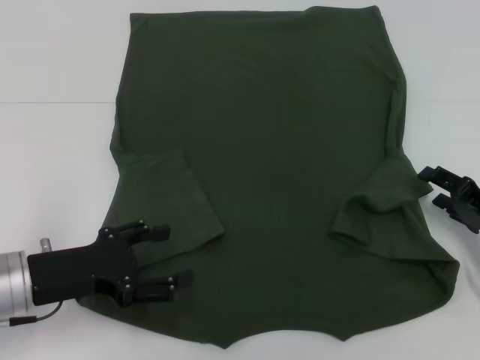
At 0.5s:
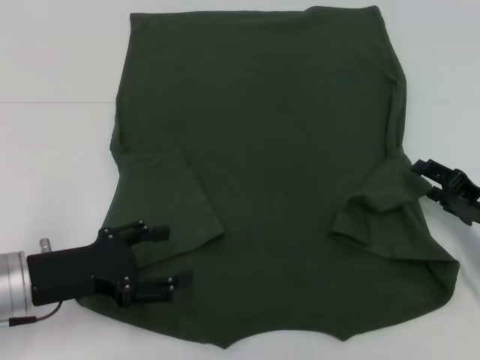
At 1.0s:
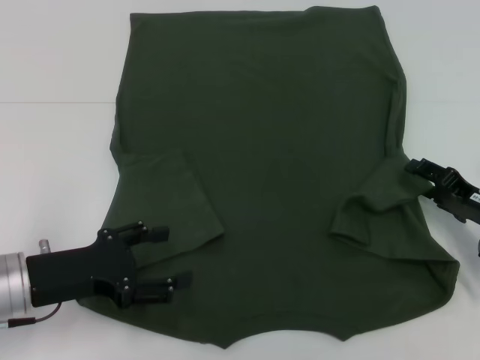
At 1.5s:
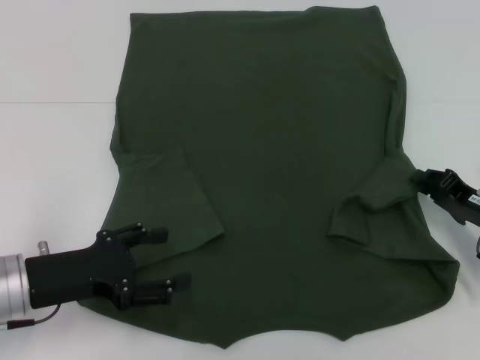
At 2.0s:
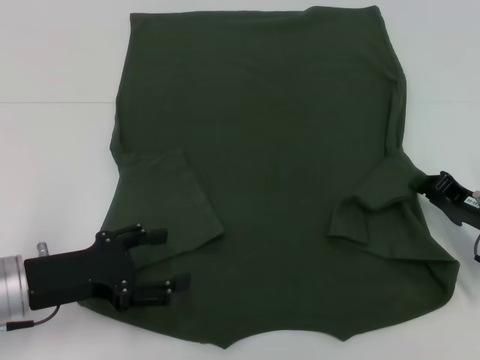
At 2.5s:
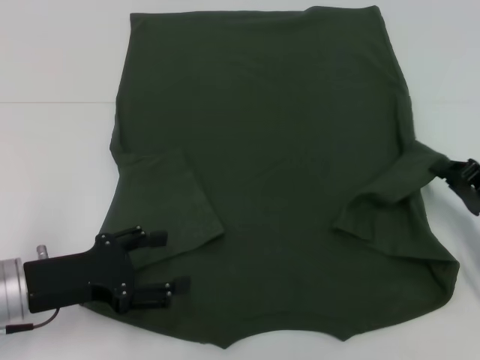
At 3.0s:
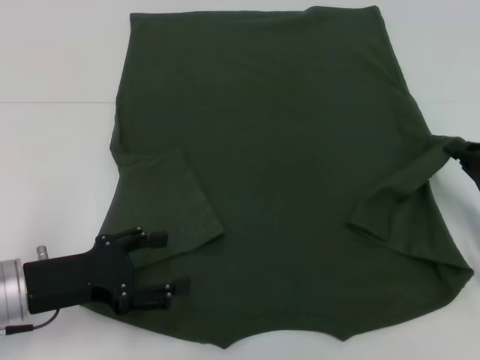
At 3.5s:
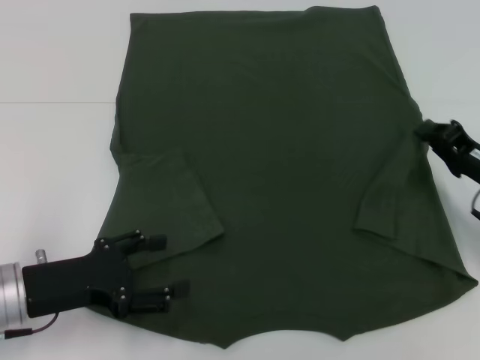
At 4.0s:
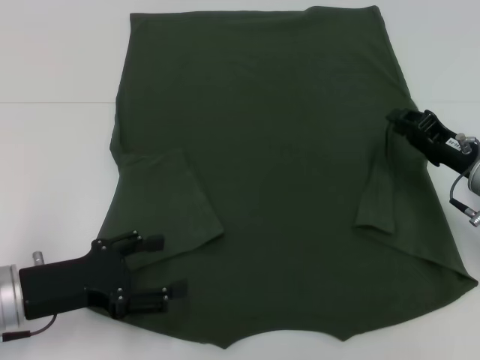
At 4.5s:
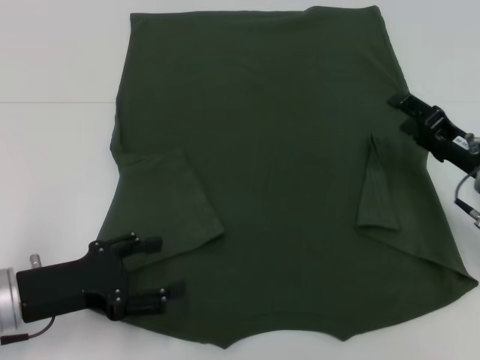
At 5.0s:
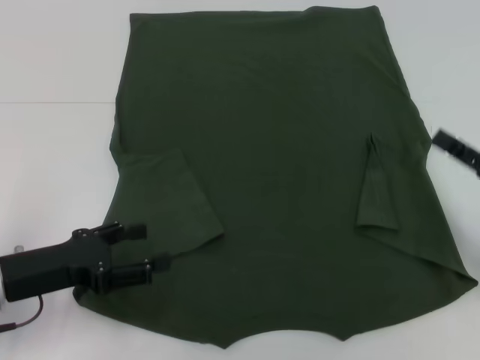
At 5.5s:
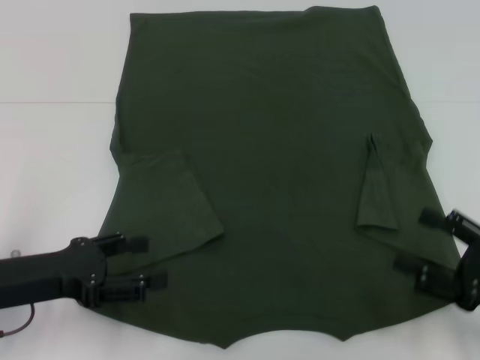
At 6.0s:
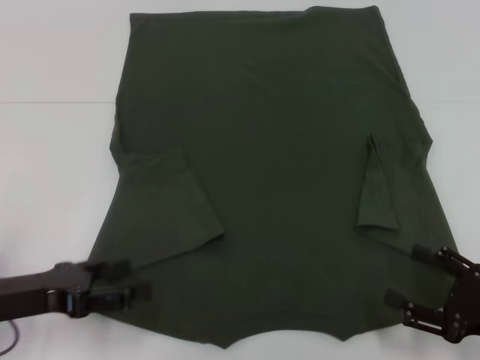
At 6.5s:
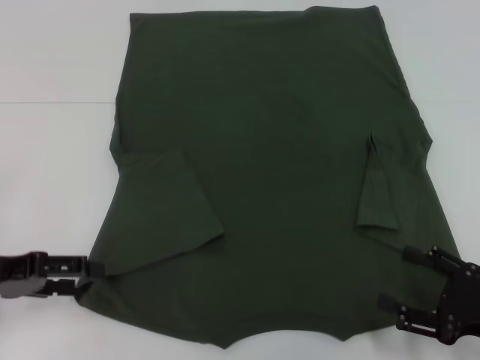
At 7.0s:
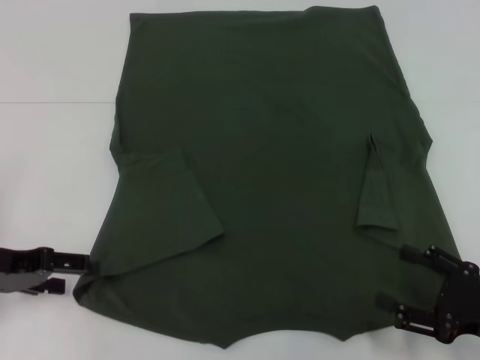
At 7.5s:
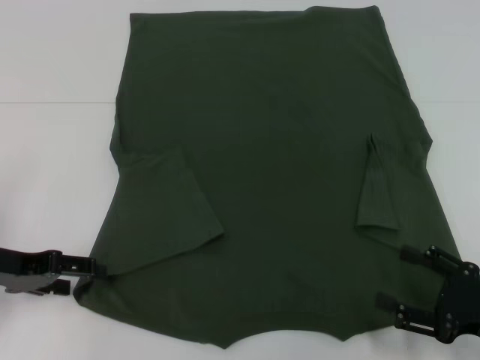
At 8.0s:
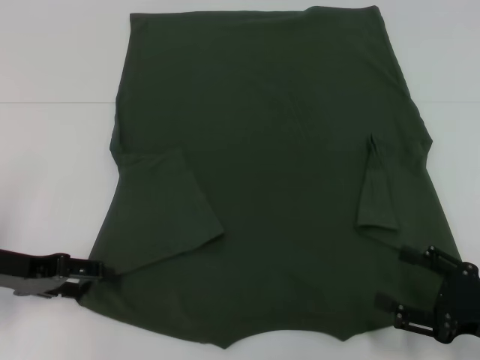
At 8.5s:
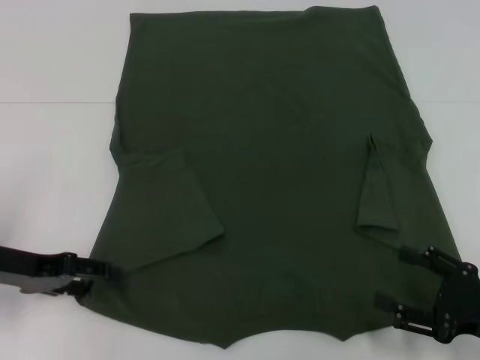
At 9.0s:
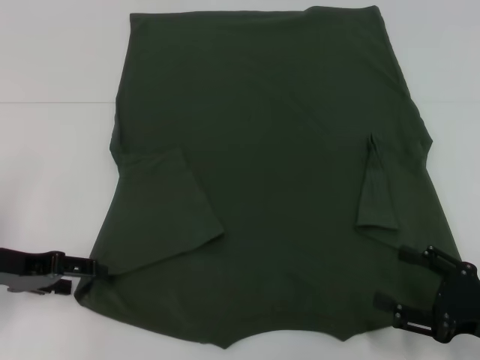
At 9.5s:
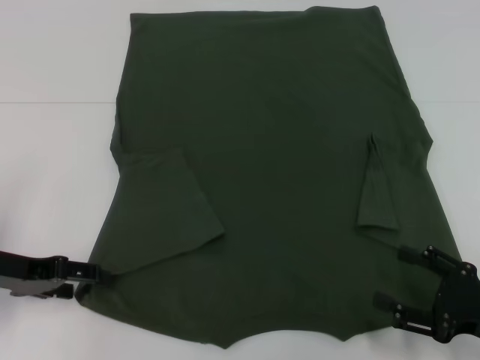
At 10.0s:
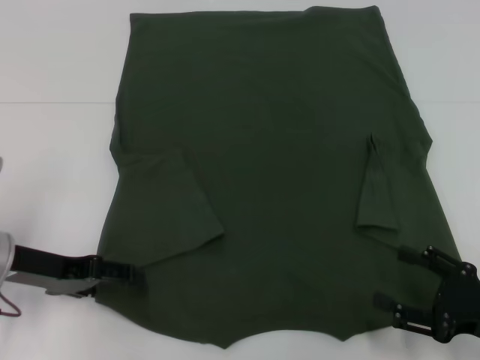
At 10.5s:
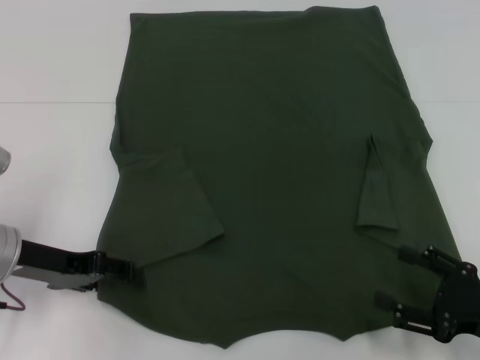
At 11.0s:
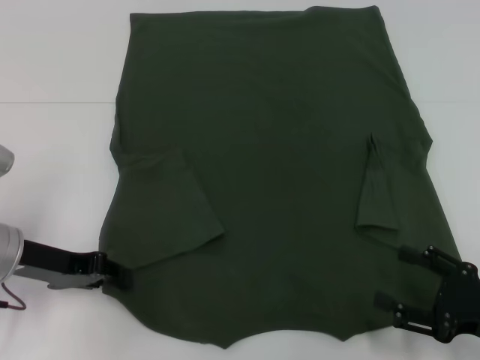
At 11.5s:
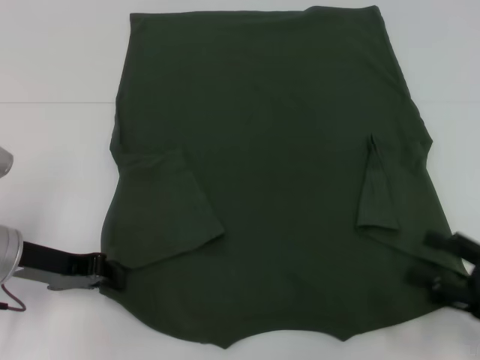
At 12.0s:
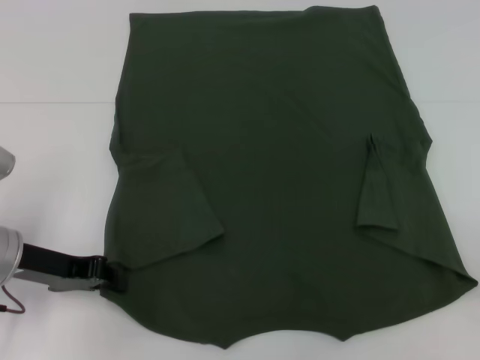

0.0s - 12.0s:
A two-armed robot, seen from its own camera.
Step, 0.0s - 4.0s: Fold the bottom right sleeve with your right hand.
Step, 4.5s - 11.0s: Grab the bottom left corner with your left hand.
0.0s - 2.0s: The right gripper closes.
2.0s - 4.0s: The right gripper changes place by about 5 cm.
4.0s - 6.0s: The right gripper moves backward, roughly 15 cm, and opens up.
6.0s - 8.0s: The left gripper heads forward, covering some 5 cm.
8.0s - 10.0s: The grippers move only a little.
10.0s - 12.0s: The right gripper is displaced to the right and upward by roughly 15 cm; the left gripper closes up.

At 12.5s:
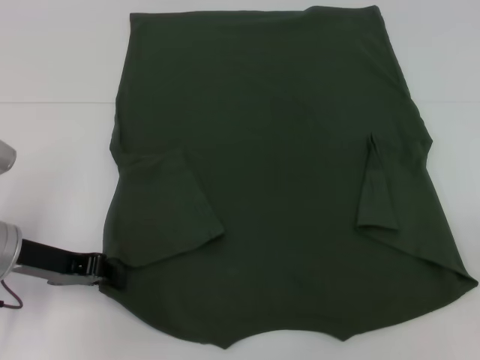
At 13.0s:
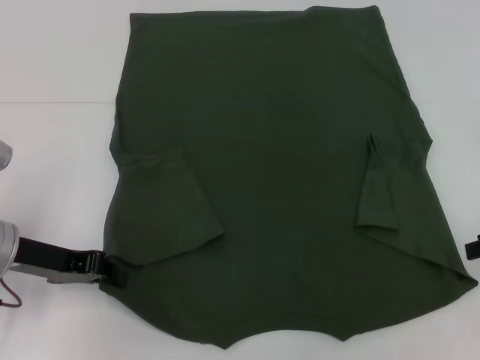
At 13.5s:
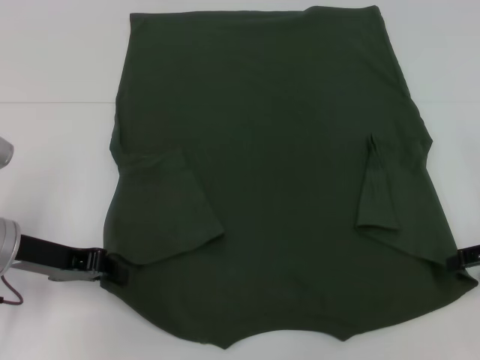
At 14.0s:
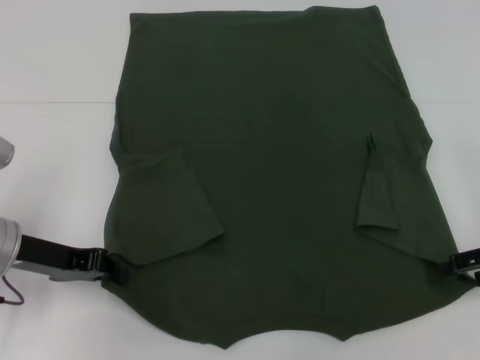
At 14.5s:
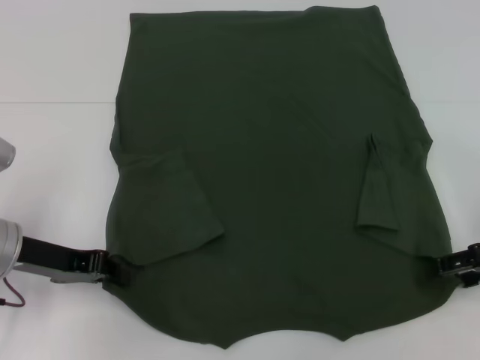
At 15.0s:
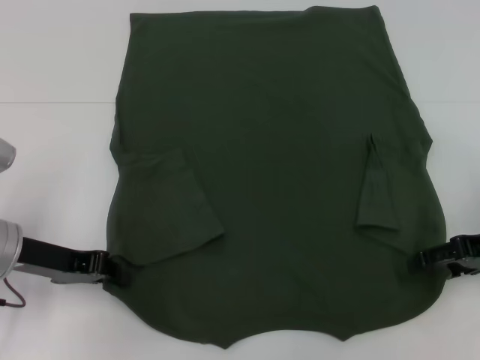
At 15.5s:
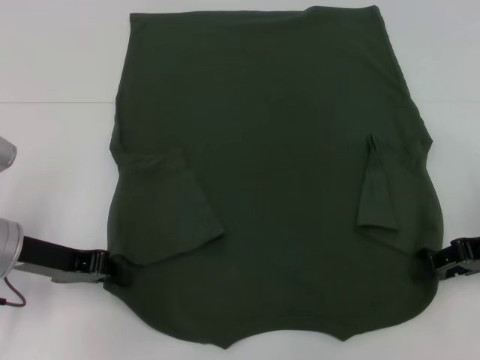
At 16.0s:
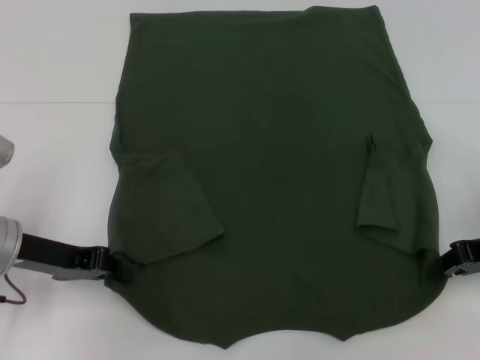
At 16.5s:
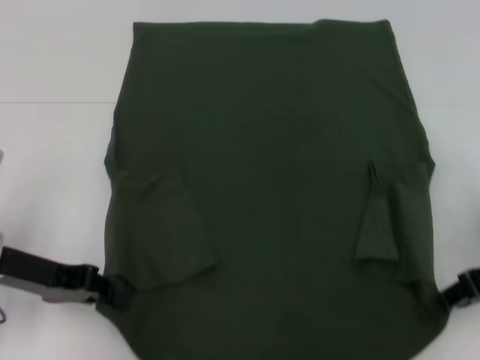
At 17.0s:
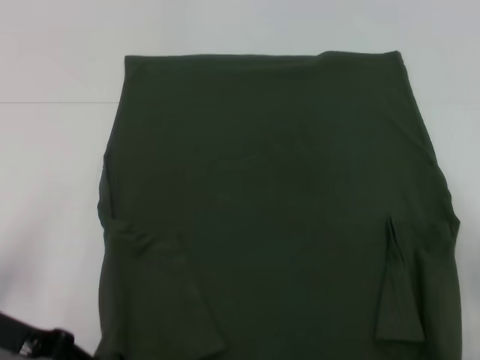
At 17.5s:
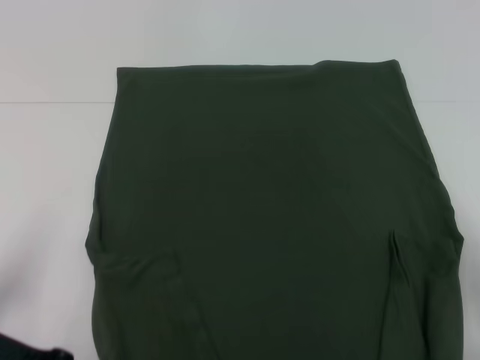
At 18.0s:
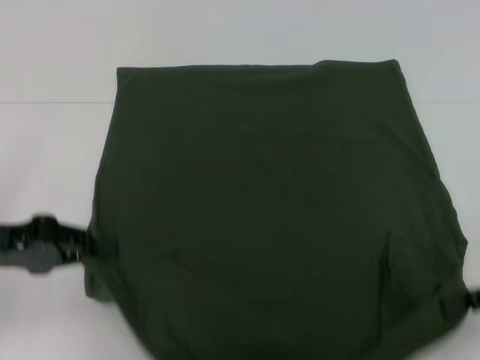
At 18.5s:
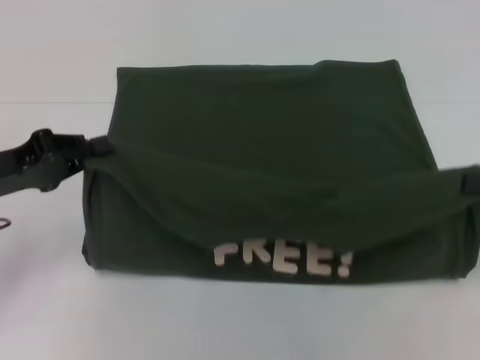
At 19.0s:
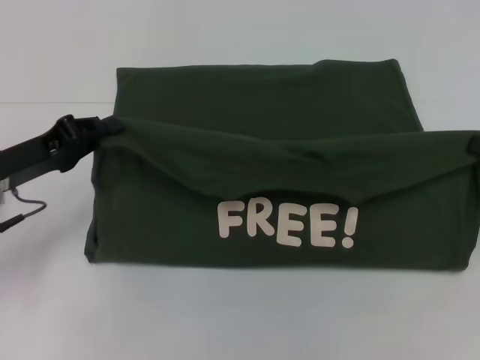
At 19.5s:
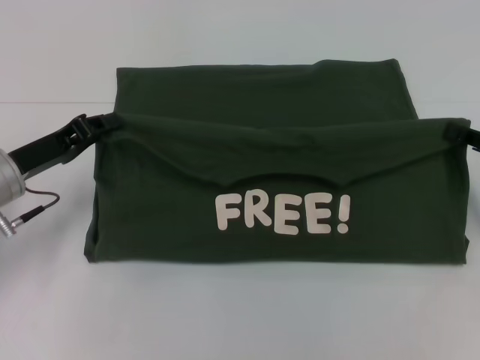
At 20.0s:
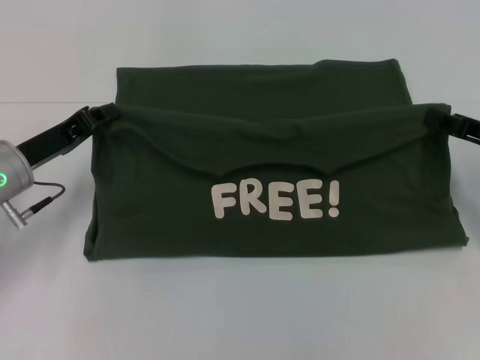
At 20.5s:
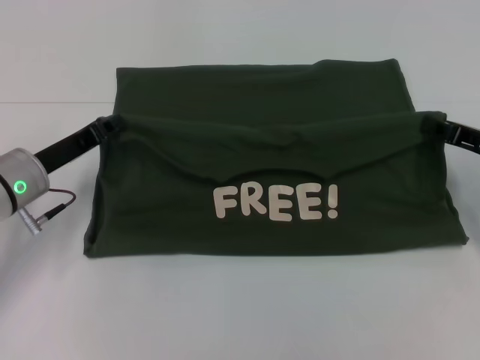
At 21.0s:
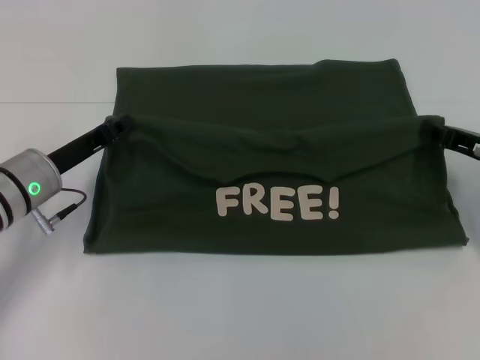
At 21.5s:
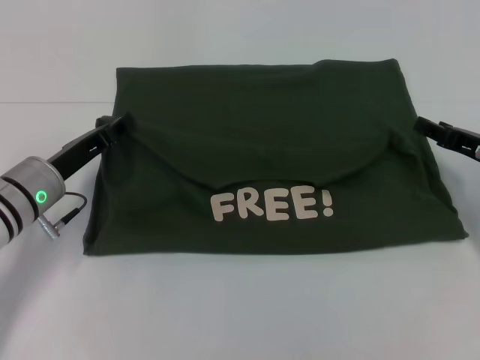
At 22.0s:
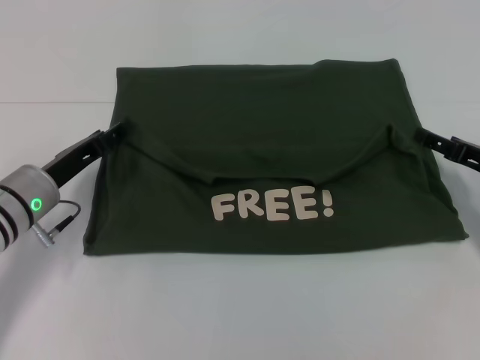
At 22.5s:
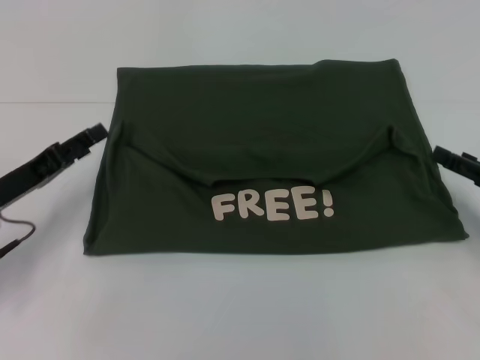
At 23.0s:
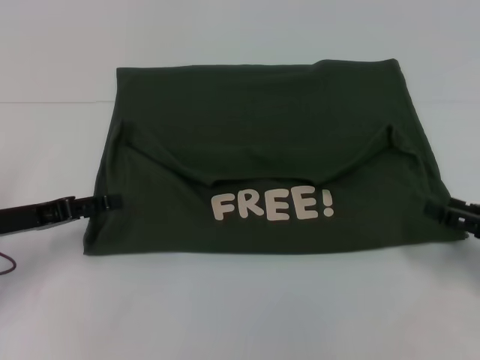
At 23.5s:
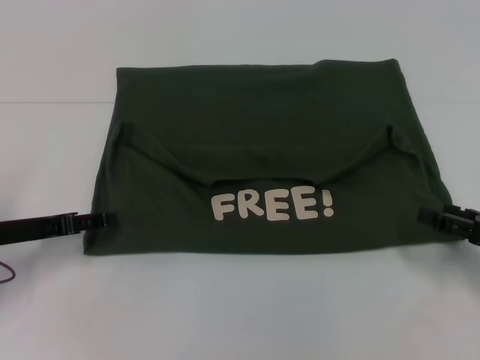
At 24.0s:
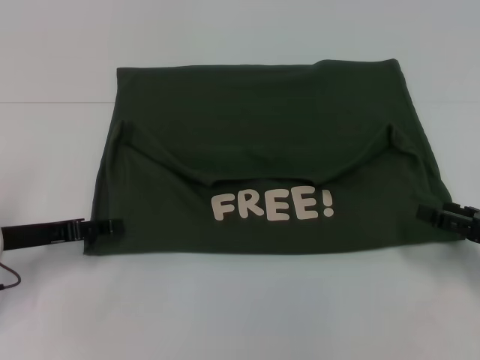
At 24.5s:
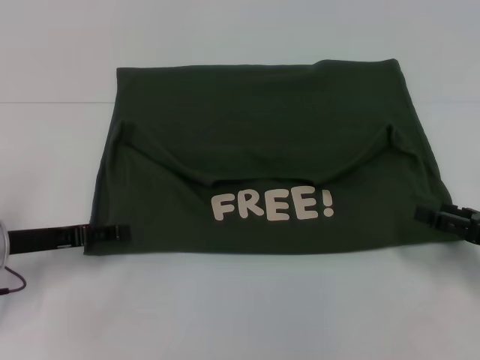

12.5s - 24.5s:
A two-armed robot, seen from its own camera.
Step, 12.5s - 16.0s: Grab the bottom right corner with your right hand.
Step, 16.5s - 21.5s: Fold the clothes with your right hand.
12.5s - 14.5s: The right gripper moves to the left, some 5 cm.
14.5s - 16.5s: The right gripper closes up.
16.5s - 18.5s: The right gripper moves to the right, approximately 5 cm.
18.5s - 20.5s: The left gripper shifts some 10 cm to the right and downward; the right gripper goes some 10 cm forward, to the left and downward.
20.5s - 22.5s: The left gripper ends up approximately 5 cm from where it was, and opens its fingers. Meanwhile the right gripper shifts about 5 cm backward, and opens.

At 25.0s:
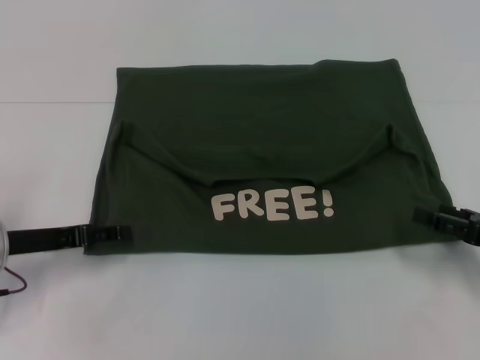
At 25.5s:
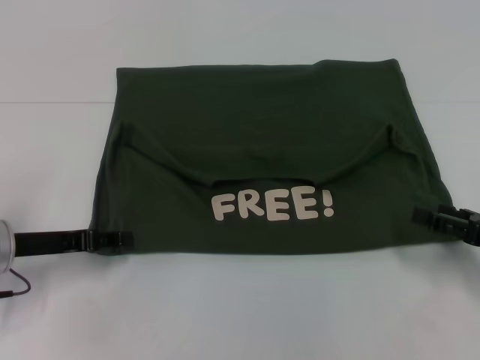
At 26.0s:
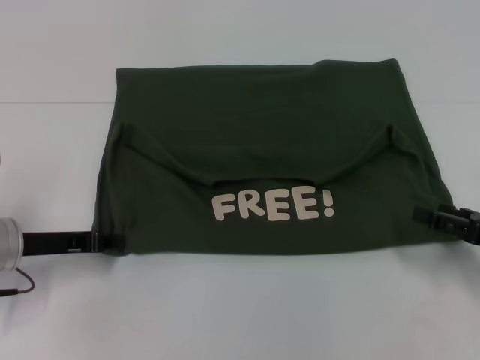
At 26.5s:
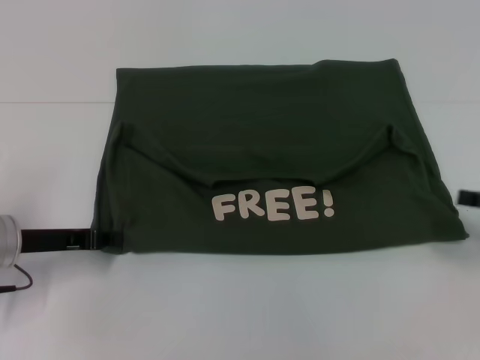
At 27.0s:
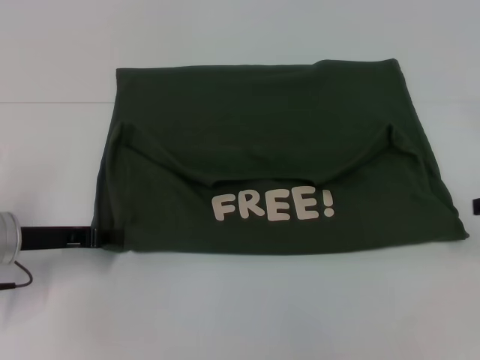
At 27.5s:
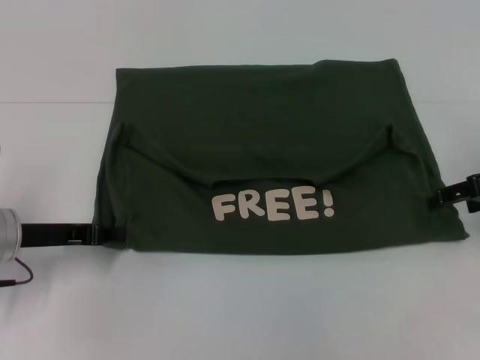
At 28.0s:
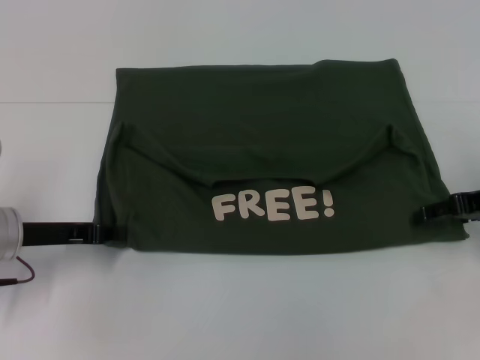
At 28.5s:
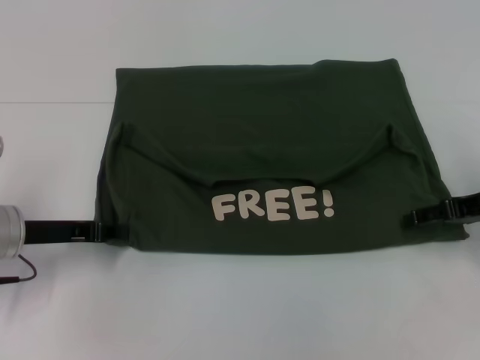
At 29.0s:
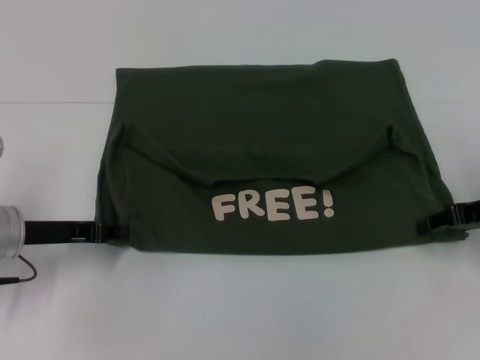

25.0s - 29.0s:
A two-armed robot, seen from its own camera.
25.0s - 27.0s: The left gripper closes up; the right gripper is displaced upward and forward by about 10 cm.
27.0s - 29.0s: The right gripper heads to the left, covering approximately 5 cm.
